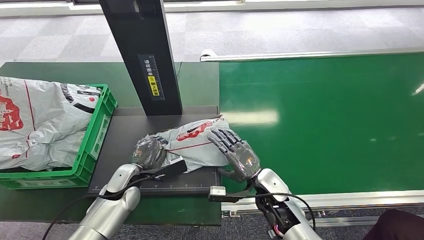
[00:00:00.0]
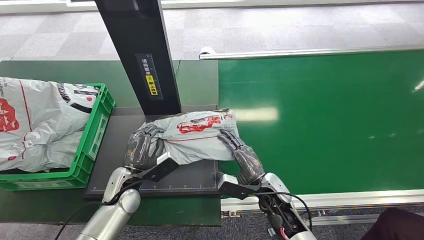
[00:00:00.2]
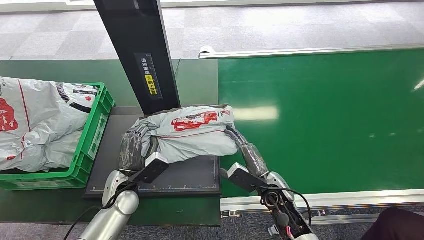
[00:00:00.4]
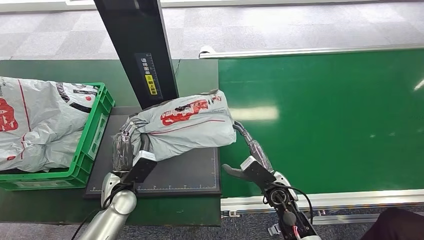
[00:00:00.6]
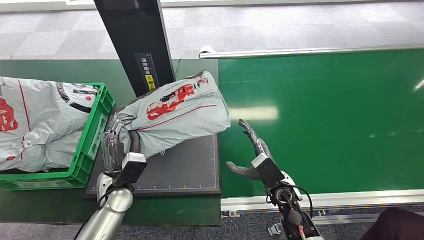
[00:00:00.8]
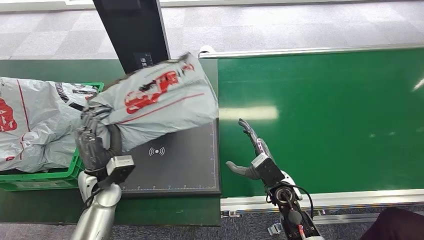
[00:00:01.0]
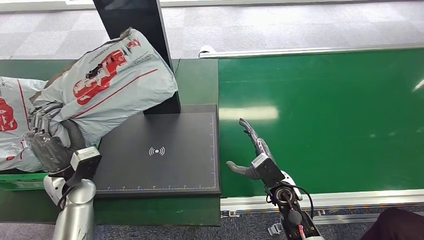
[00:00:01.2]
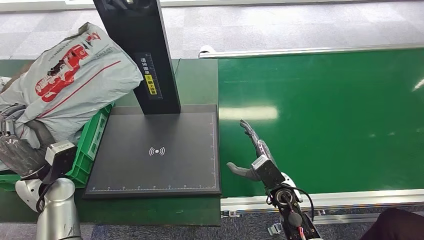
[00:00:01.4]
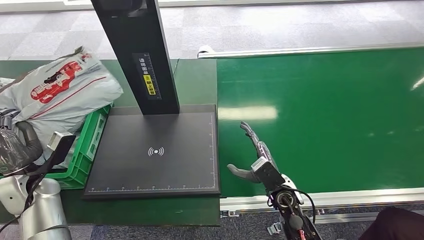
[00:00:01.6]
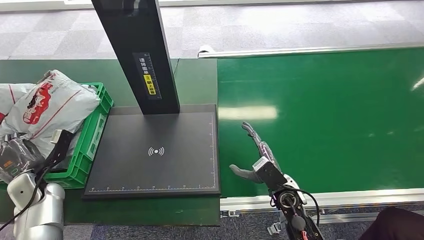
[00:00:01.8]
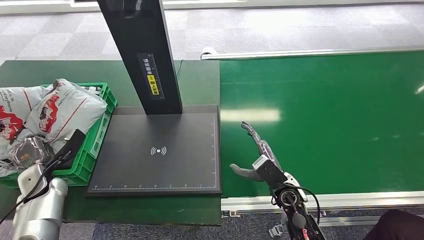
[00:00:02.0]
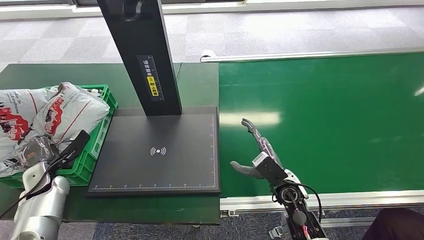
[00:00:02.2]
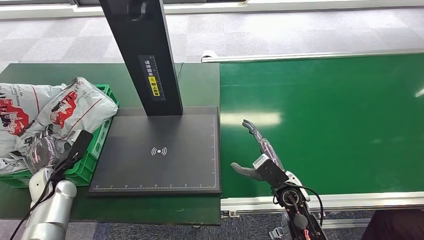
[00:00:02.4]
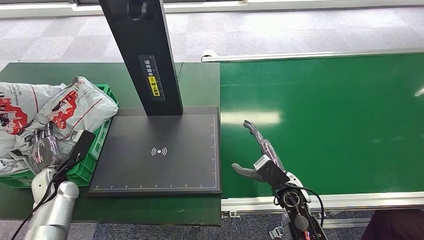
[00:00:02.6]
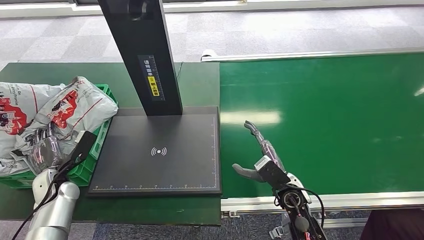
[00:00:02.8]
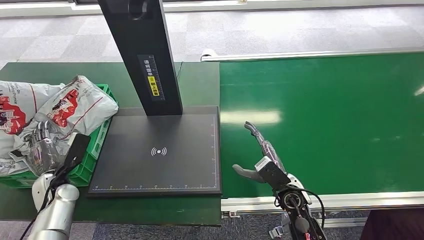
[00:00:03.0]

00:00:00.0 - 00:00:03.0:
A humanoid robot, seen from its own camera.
Step, 00:00:01.4 - 00:00:03.0: Place the package into the parcel locker.
